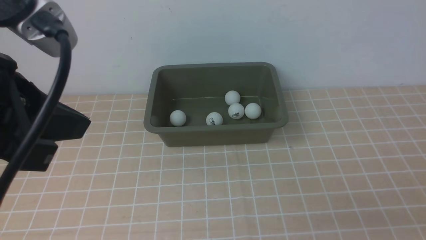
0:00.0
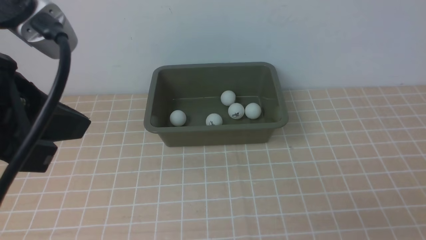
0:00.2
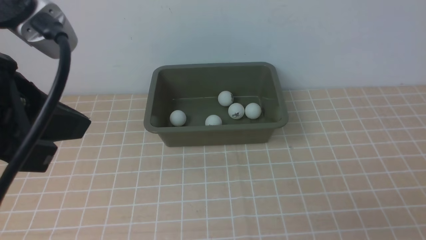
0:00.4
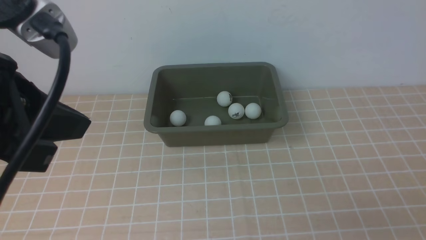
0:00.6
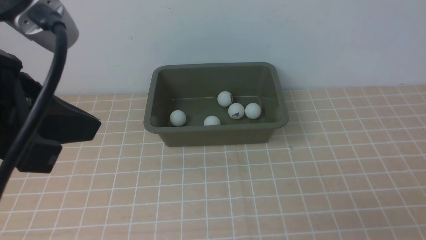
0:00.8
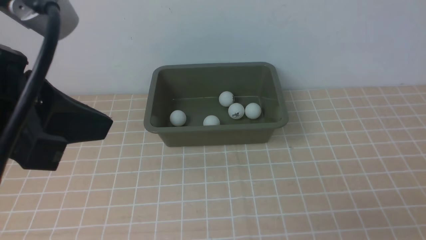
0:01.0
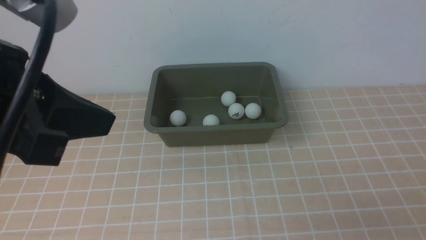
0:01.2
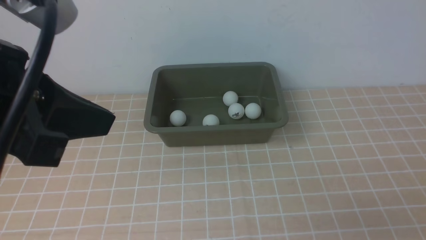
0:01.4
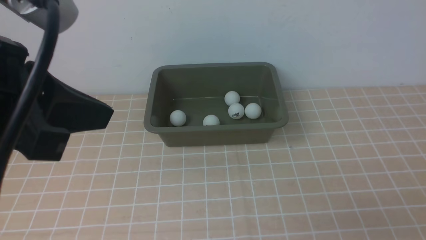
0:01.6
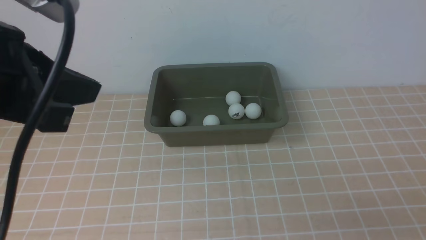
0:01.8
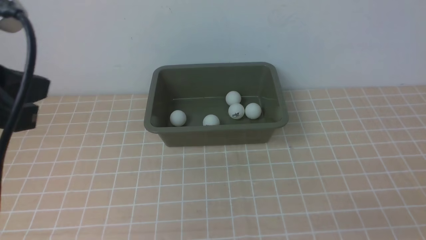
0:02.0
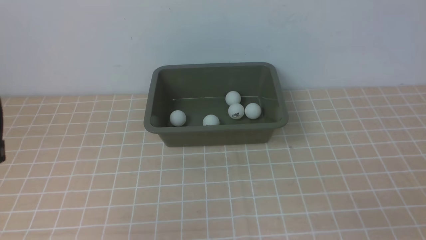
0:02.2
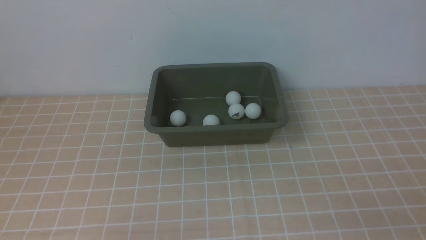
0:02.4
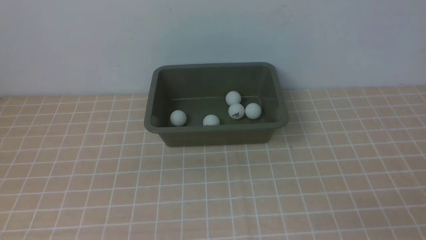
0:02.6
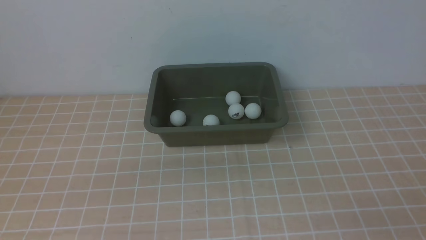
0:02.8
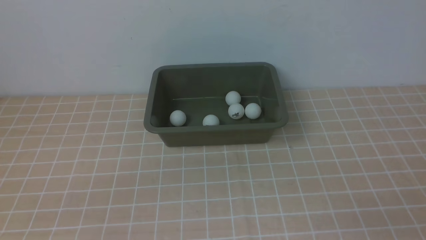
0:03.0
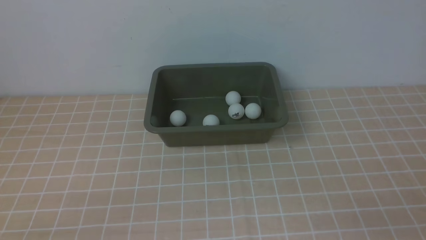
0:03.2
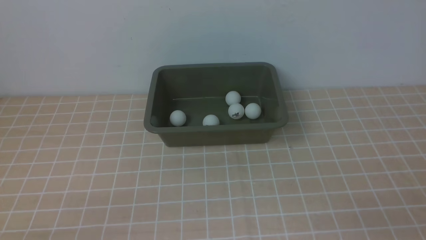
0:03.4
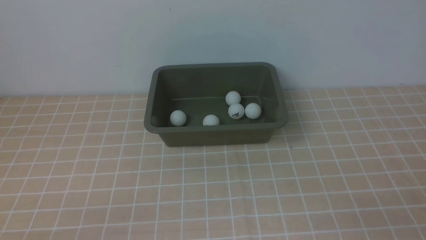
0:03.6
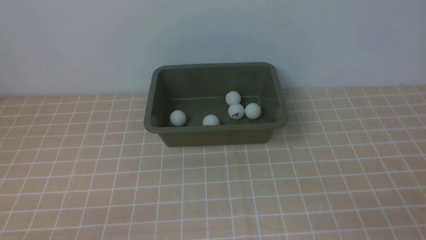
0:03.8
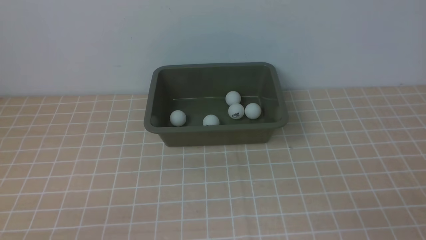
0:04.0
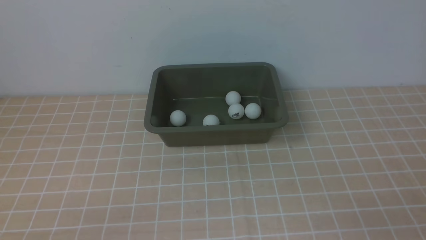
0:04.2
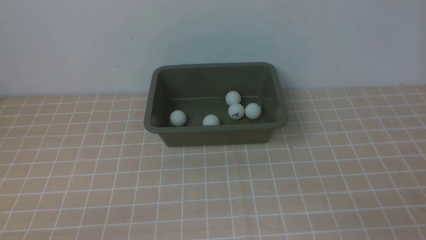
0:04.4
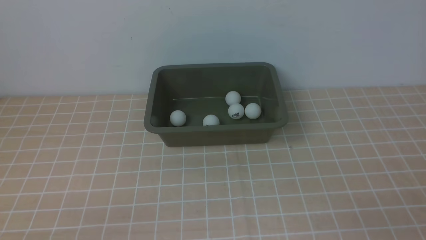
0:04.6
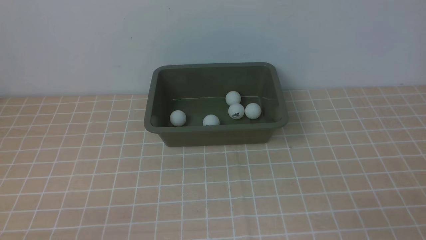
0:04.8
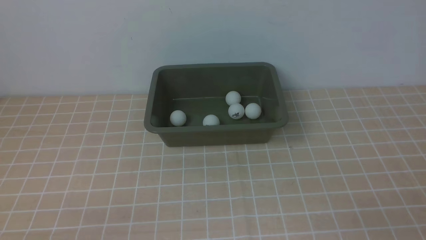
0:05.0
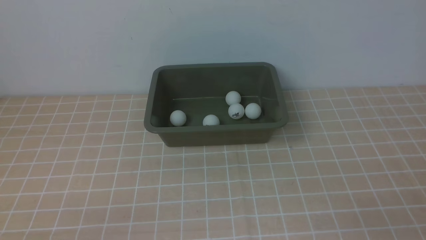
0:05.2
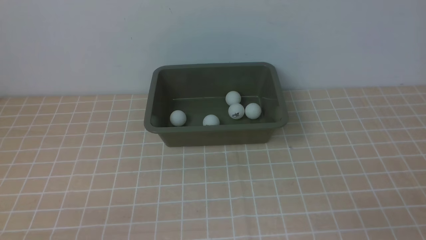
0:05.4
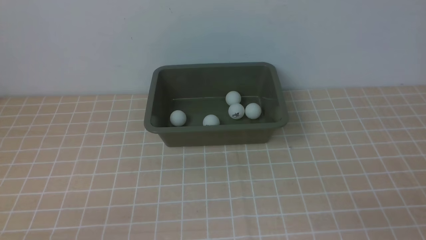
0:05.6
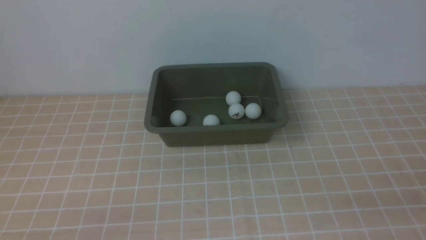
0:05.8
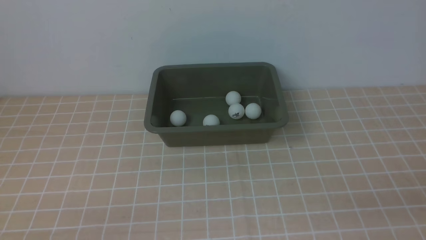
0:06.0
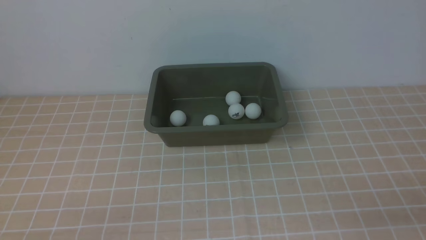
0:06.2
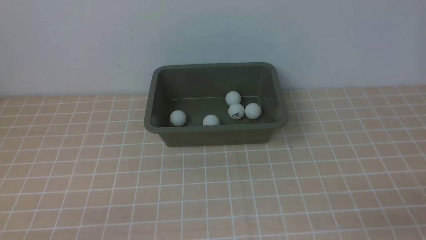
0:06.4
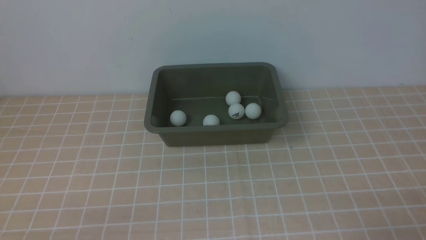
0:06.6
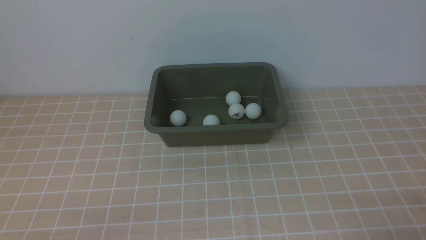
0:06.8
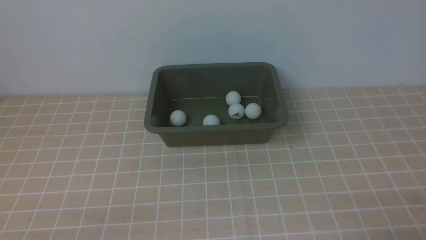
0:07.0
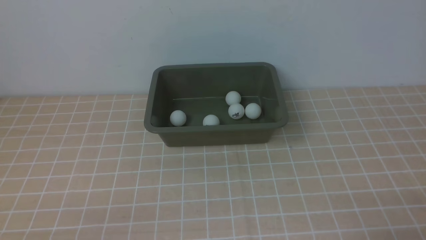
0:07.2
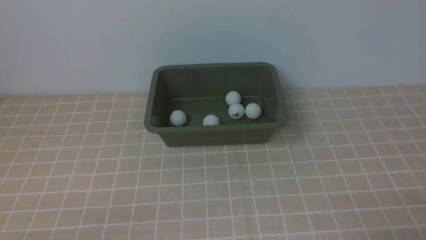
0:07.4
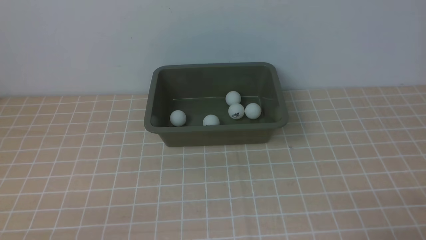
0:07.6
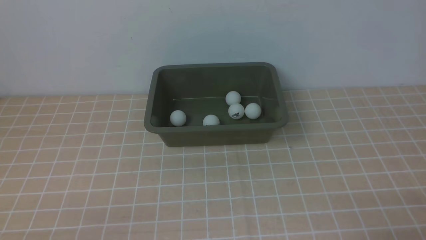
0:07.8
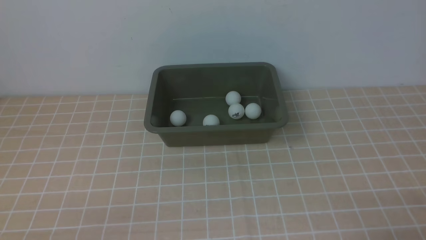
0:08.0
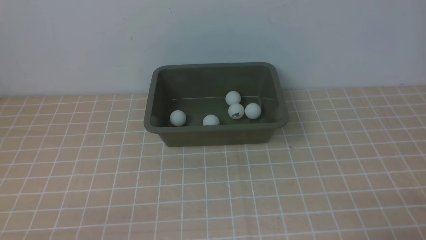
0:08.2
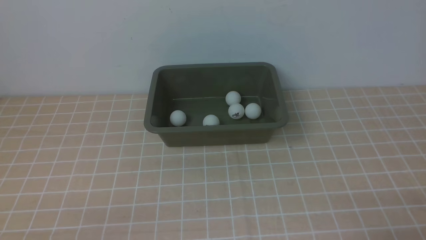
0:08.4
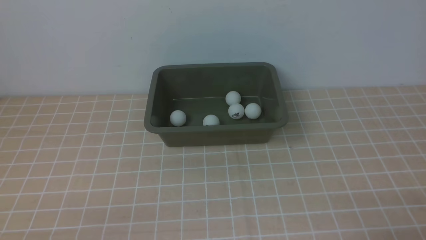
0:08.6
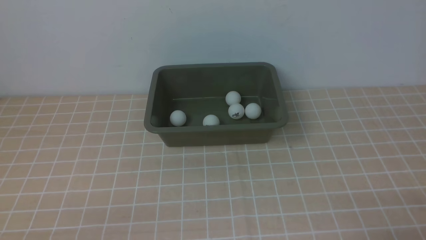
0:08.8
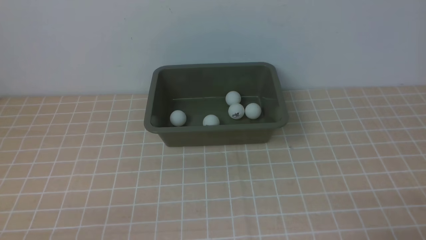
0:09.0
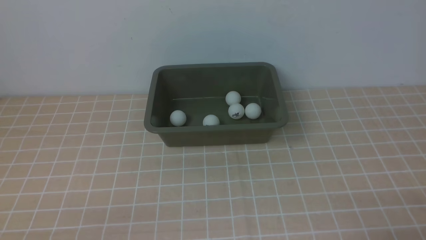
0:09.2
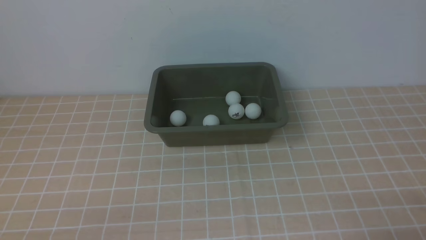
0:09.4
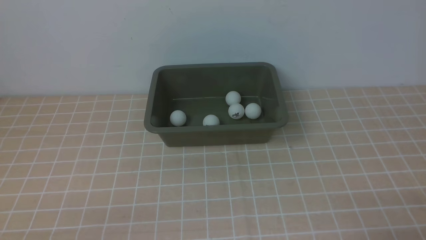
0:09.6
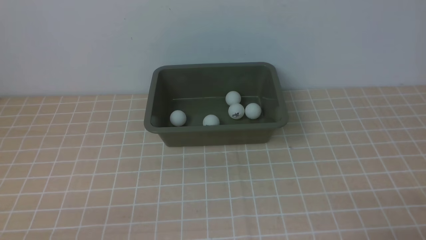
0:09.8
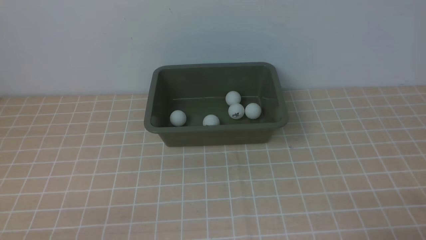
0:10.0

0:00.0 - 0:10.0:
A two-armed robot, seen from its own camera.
0:00.0 - 0:01.4: There are only small adjustments of the grippers.
0:01.4 - 0:02.8: The left gripper goes roughly 20 cm downward, backward and to the left.
0:07.2 - 0:10.0: Neither gripper changes place.

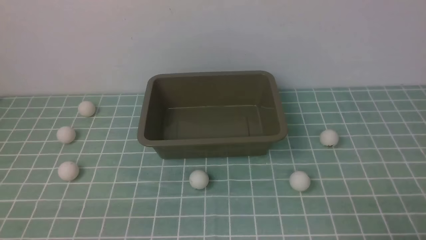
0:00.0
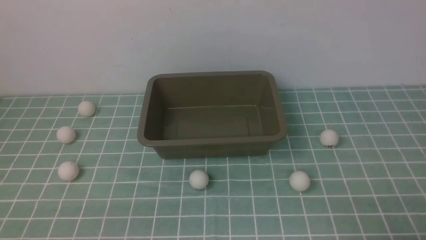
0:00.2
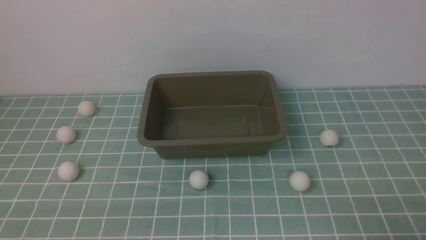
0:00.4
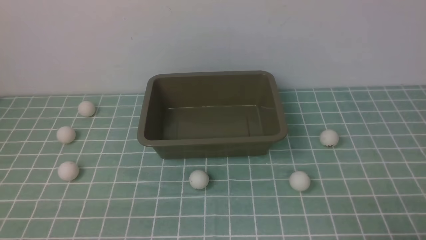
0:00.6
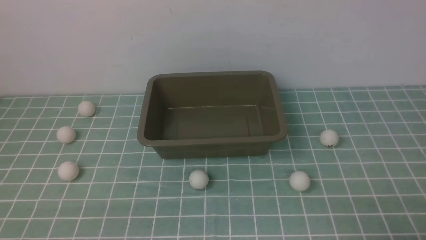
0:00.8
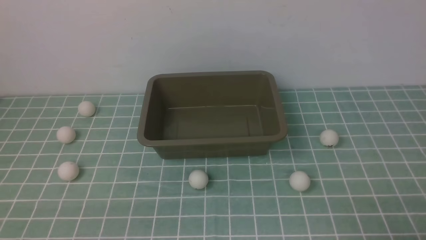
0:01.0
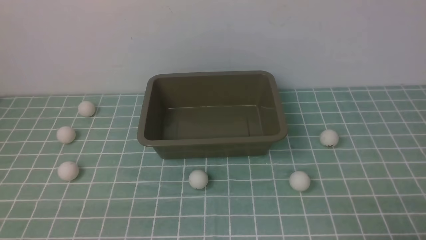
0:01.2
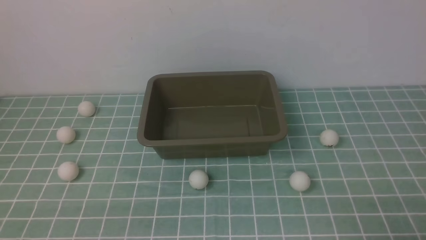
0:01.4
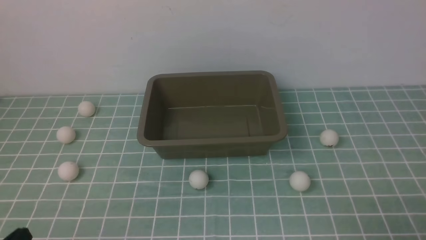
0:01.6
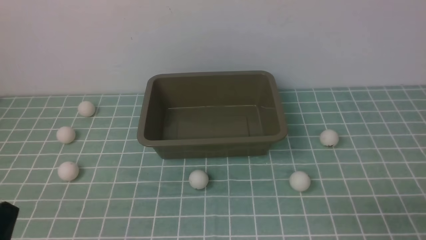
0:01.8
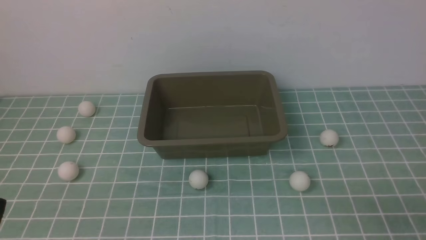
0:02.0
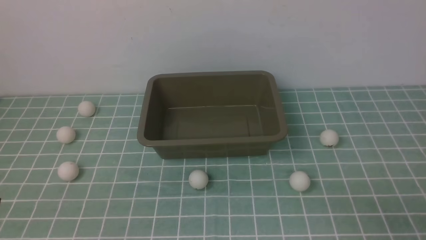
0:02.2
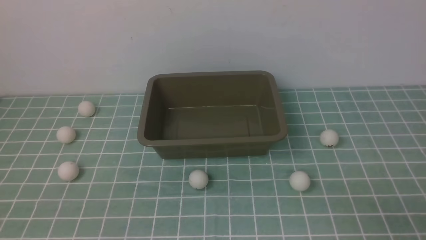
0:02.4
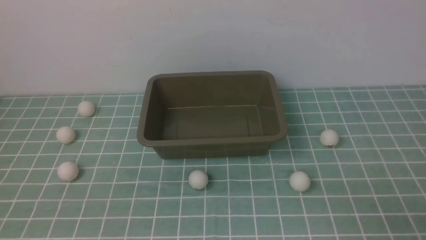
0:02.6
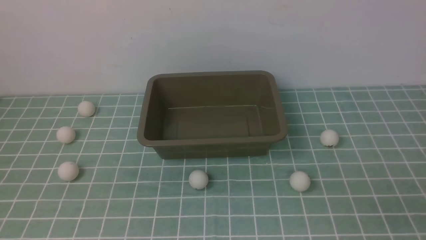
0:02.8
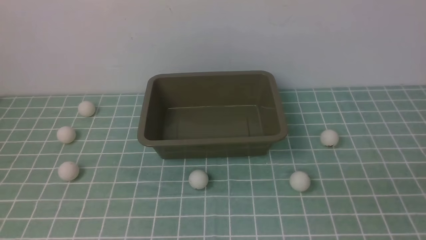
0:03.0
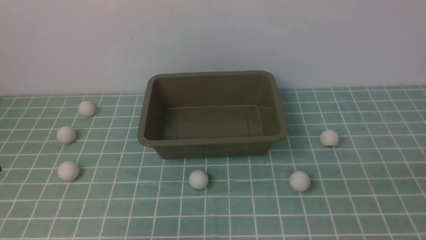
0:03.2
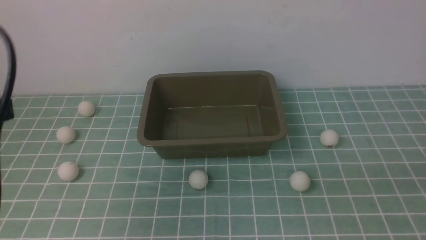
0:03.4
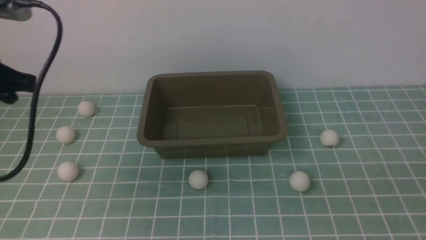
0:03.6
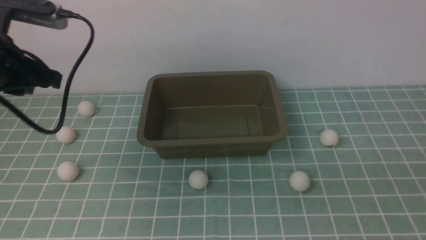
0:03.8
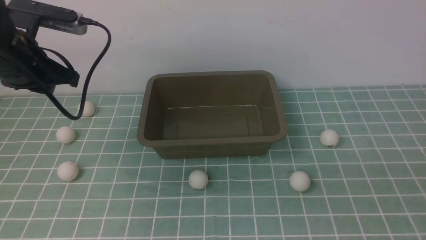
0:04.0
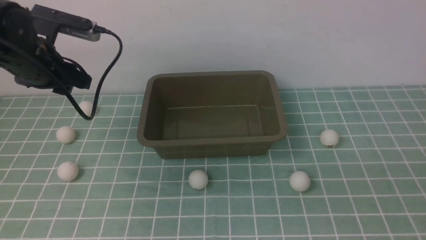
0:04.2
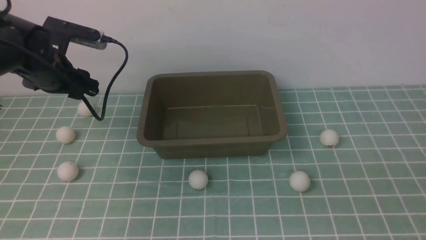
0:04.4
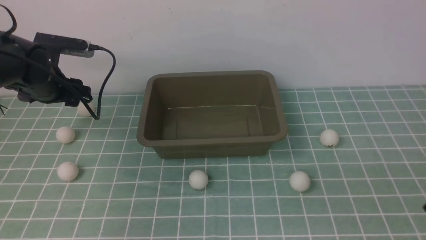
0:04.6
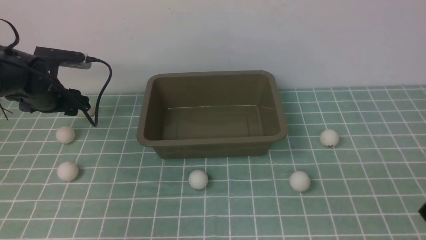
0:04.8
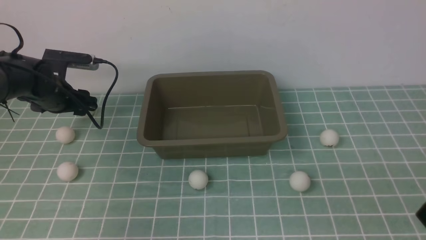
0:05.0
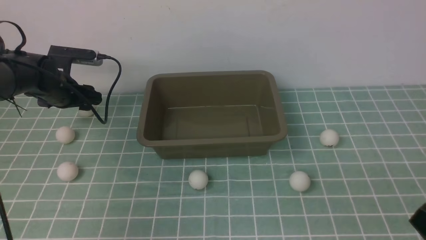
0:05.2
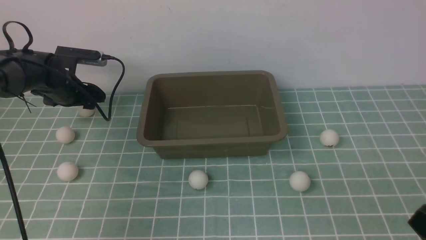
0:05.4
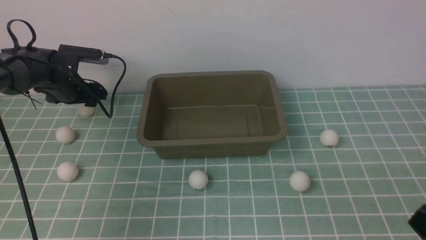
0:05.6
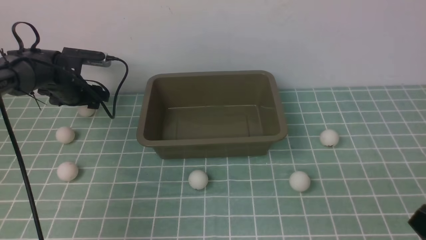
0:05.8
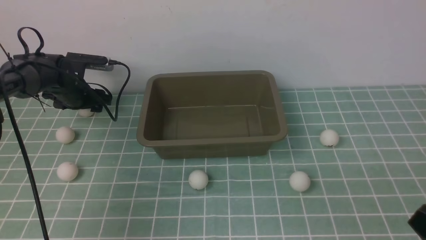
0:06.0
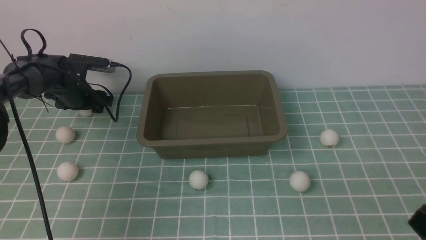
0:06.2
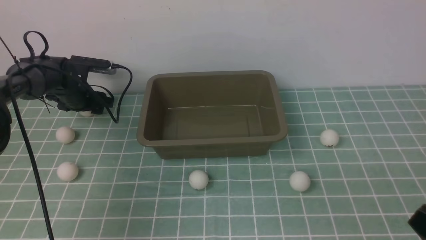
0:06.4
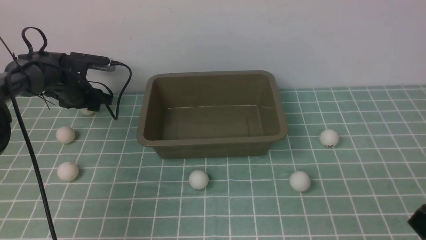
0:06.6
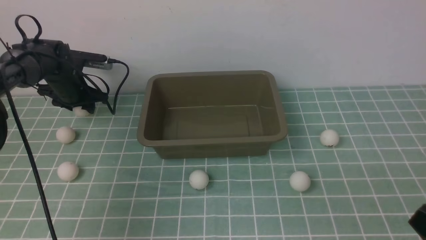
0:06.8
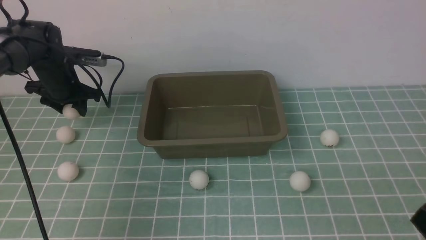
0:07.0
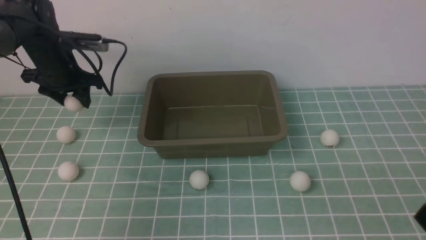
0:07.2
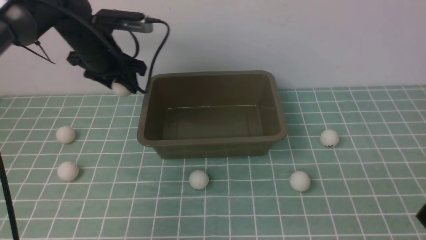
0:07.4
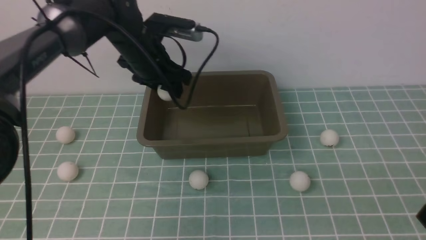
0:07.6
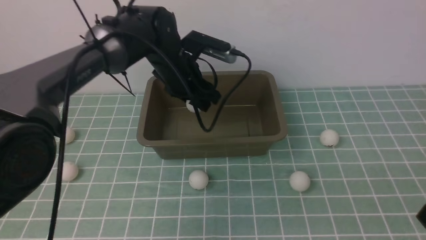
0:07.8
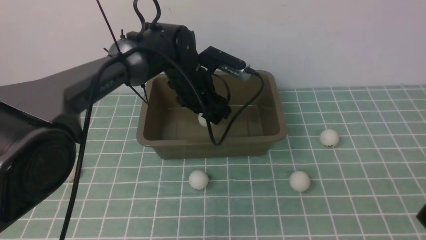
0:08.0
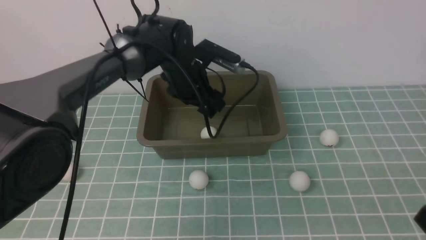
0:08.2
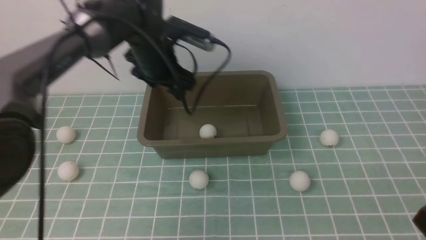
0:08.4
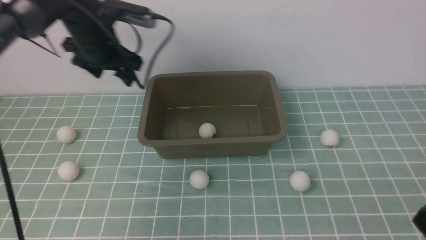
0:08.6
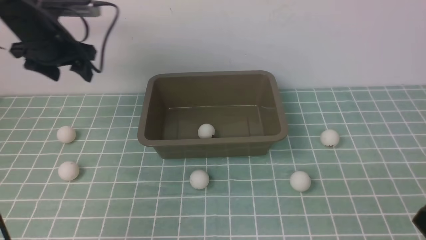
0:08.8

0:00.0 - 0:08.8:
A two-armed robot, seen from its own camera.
Step, 0:00.0 - 0:06.8: use the left arm to clamp the table tennis ball closest to it.
Step, 0:07.2 - 0:08.2: use the left arm to put the table tennis ball into the box.
0:00.0 - 0:01.4: Both grippers stay put.
0:03.0 - 0:04.4: The left gripper moves forward, about 35 cm, and opens its fingers.
0:04.4 - 0:05.8: The left gripper heads downward and forward, covering about 15 cm.
0:05.8 - 0:07.4: The left gripper is displaced upward and to the right by some 15 cm.
0:07.4 - 0:08.8: The left gripper shifts approximately 10 cm to the left.
